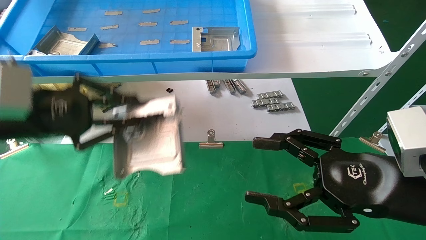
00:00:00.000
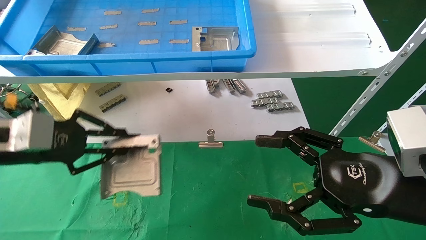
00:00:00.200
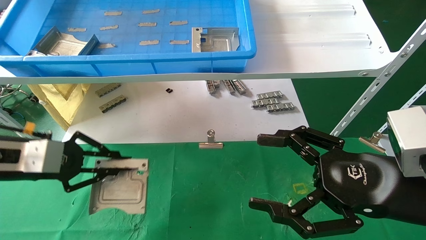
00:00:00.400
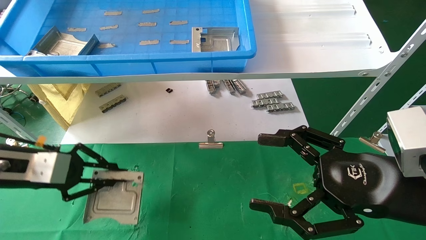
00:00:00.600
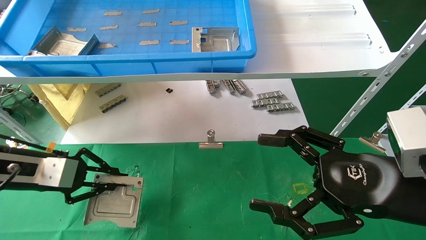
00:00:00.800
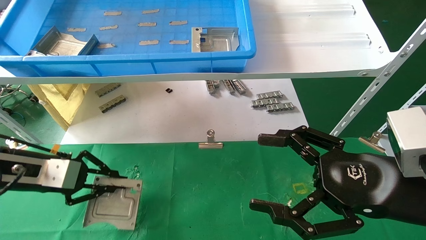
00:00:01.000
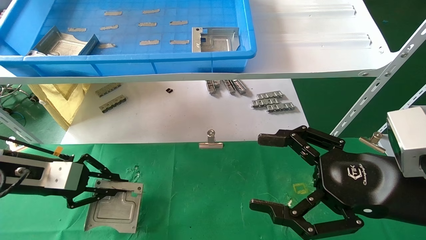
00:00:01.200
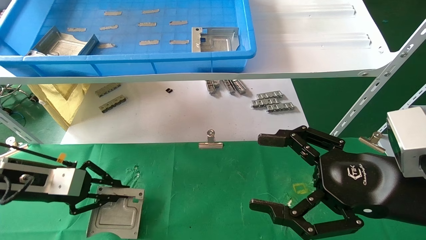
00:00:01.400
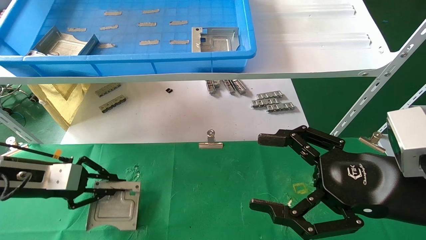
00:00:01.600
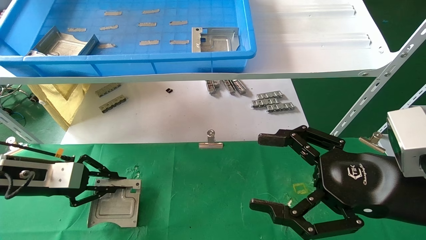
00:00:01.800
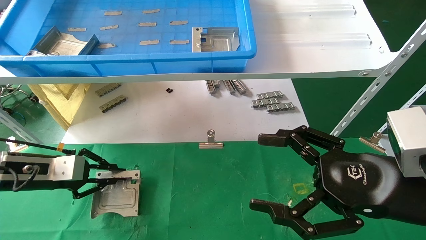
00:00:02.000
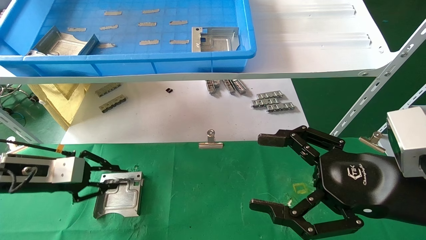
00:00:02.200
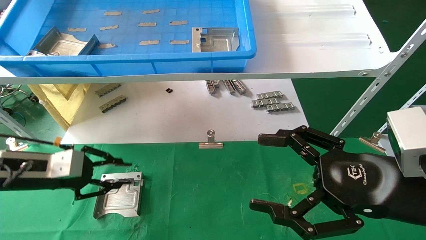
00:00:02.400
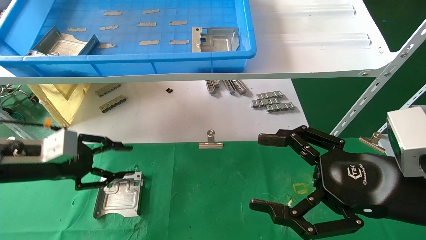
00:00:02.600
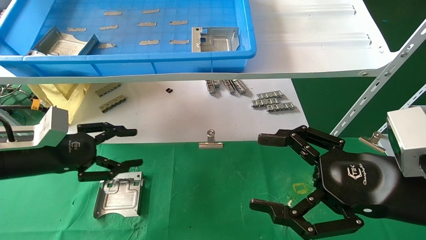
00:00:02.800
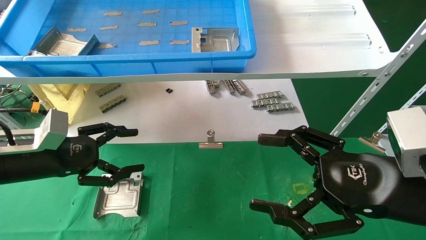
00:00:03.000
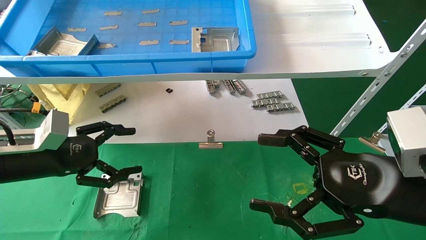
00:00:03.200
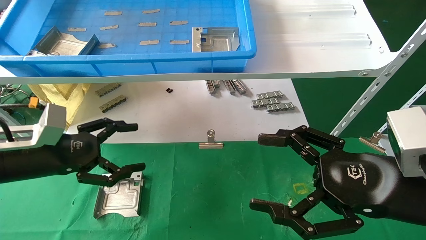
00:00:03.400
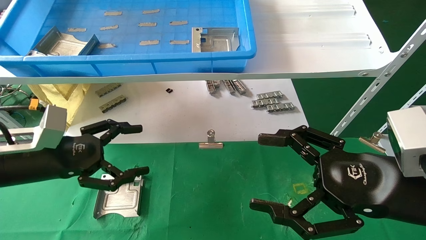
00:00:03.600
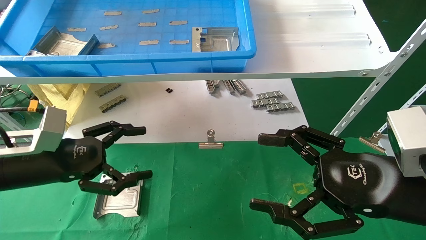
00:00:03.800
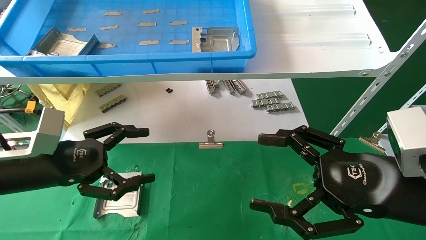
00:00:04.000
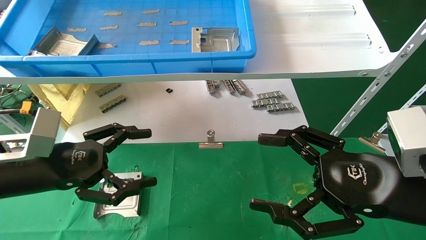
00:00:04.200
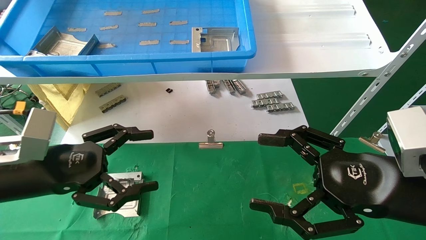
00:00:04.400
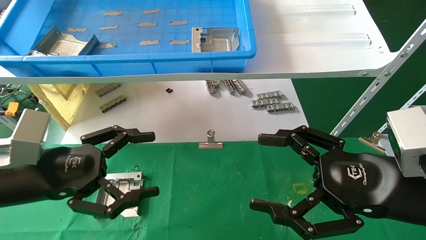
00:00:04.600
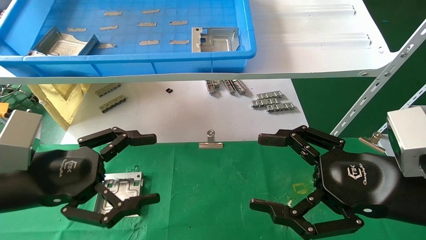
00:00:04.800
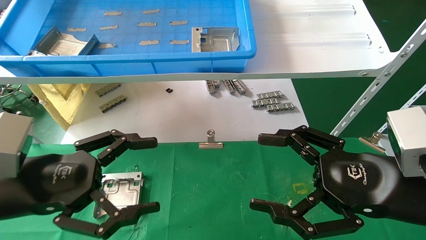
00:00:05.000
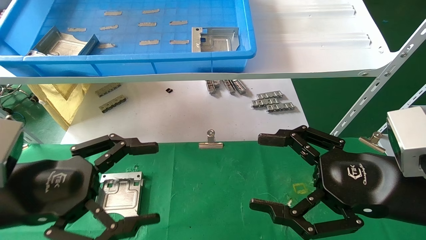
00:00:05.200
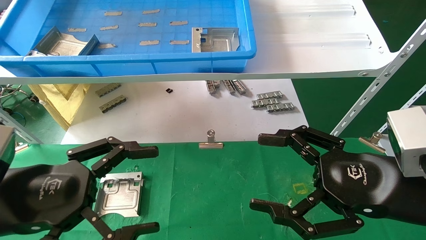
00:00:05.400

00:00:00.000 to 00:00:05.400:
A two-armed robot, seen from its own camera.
Task of the whole recording: use the mechanical arm to pick up the parts and place them on the table.
Step, 00:00:00.000 to 00:00:02.400: Place the hard drive bracket into the box.
00:00:00.000 to 00:00:01.400: The right gripper opens its fingers. Meanwhile the left gripper is displaced downward and to the left by roughly 15 cm.
00:00:01.400 to 00:00:02.800: The left gripper opens its fingers.
00:00:02.800 to 00:00:04.000: The left gripper changes place by roughly 5 cm, and opens up.
00:00:04.000 to 00:00:05.400: The left gripper heads backward, covering some 10 cm.

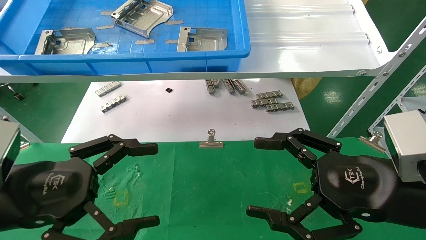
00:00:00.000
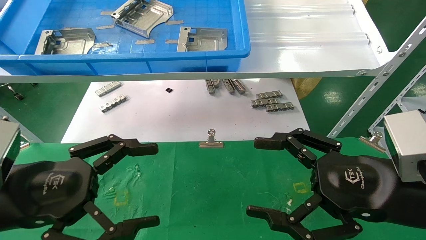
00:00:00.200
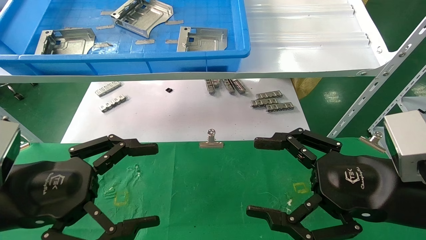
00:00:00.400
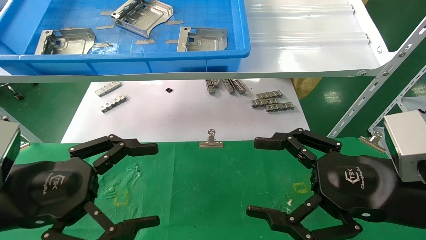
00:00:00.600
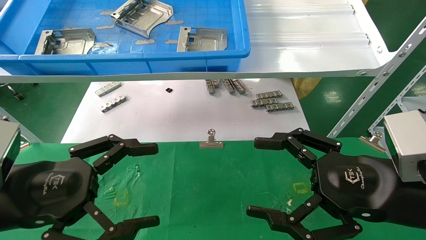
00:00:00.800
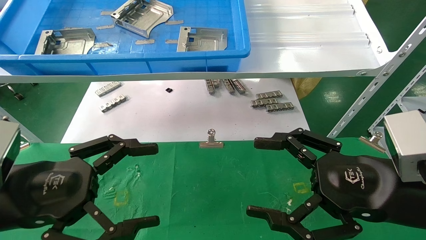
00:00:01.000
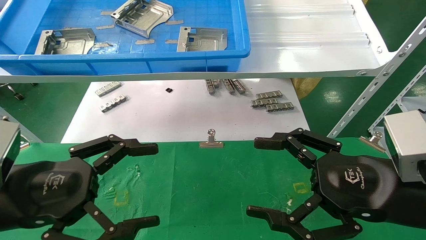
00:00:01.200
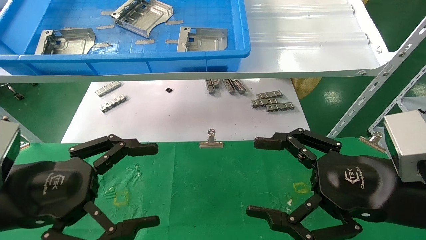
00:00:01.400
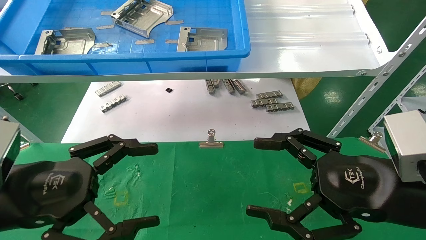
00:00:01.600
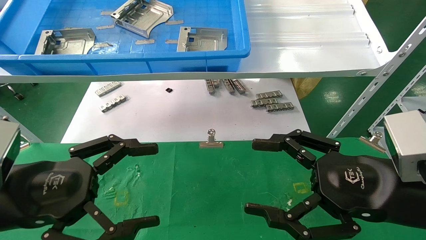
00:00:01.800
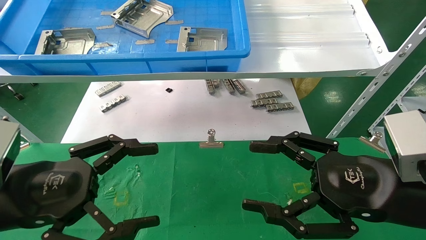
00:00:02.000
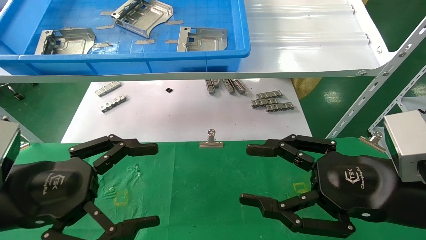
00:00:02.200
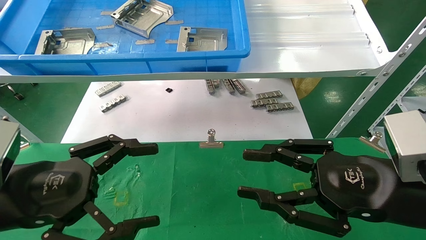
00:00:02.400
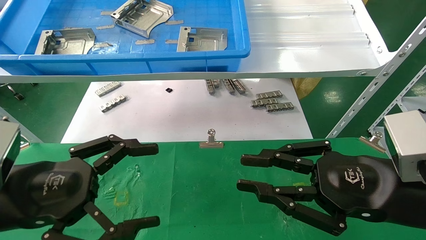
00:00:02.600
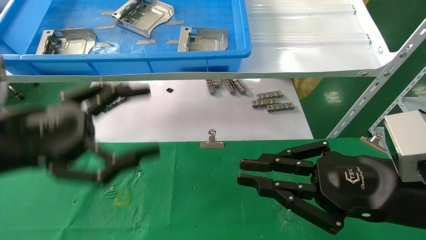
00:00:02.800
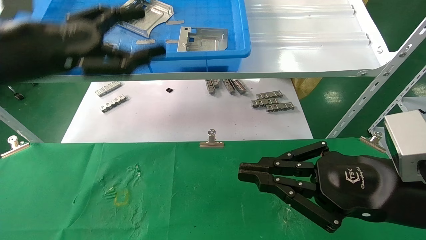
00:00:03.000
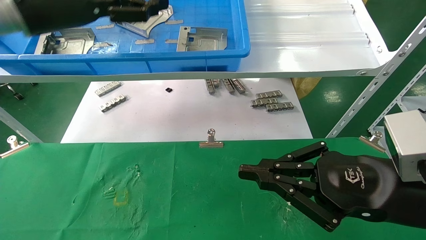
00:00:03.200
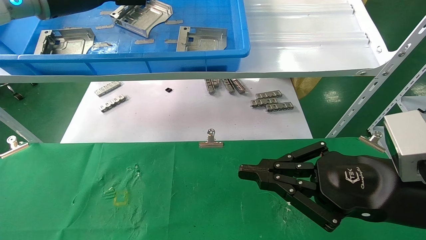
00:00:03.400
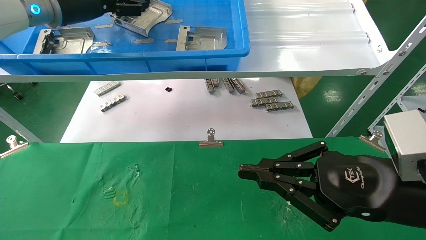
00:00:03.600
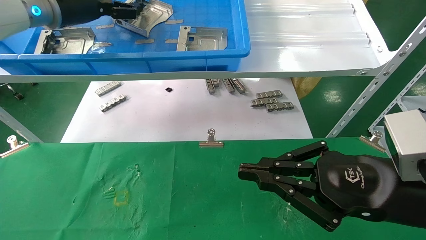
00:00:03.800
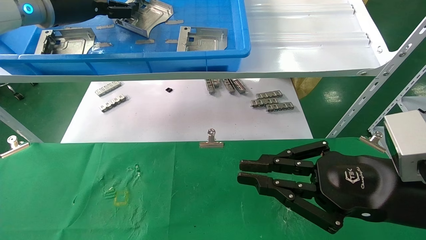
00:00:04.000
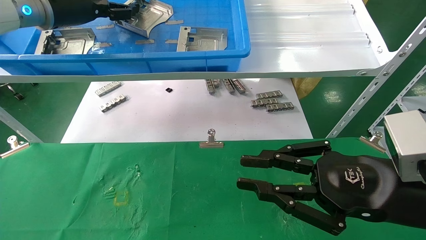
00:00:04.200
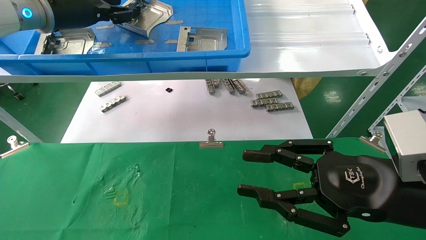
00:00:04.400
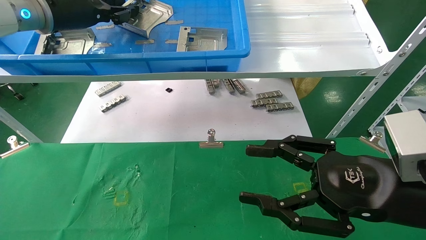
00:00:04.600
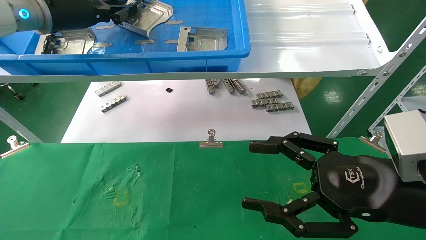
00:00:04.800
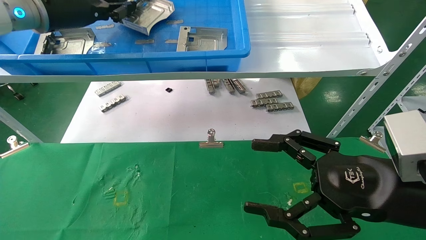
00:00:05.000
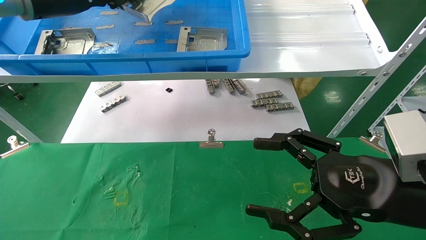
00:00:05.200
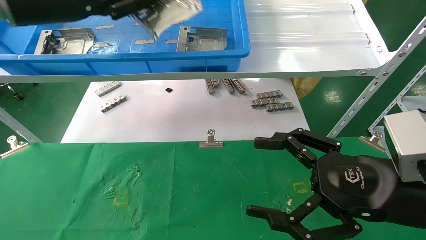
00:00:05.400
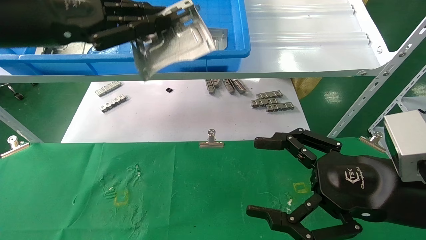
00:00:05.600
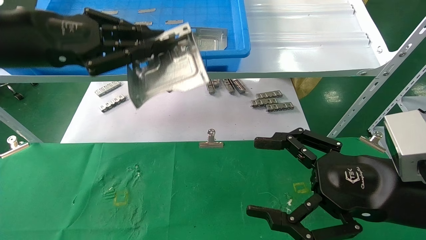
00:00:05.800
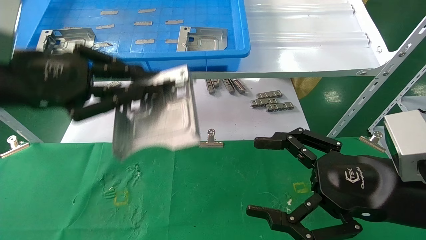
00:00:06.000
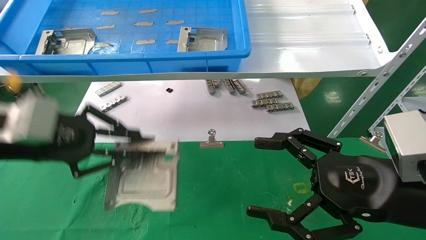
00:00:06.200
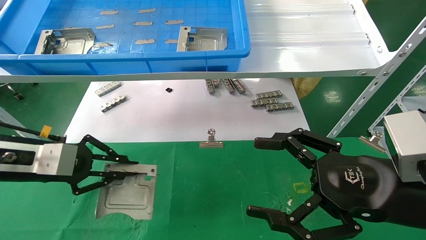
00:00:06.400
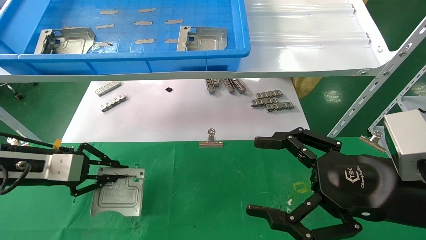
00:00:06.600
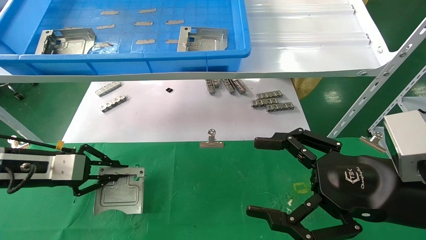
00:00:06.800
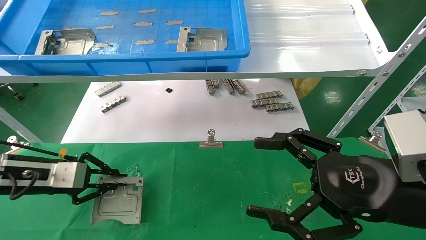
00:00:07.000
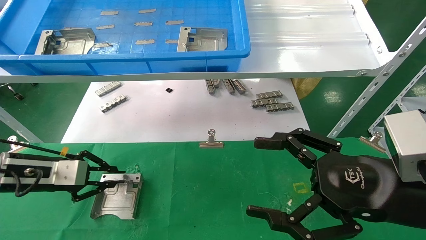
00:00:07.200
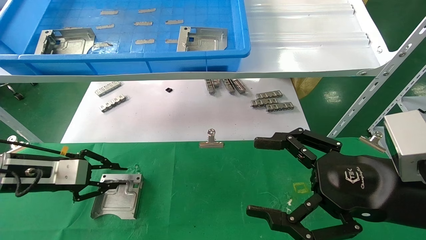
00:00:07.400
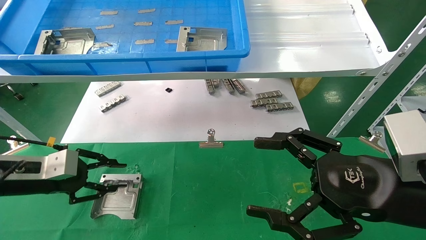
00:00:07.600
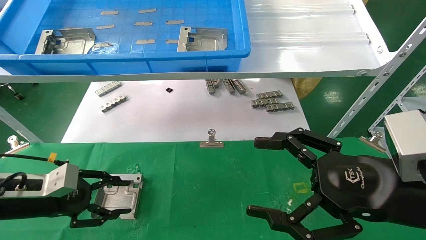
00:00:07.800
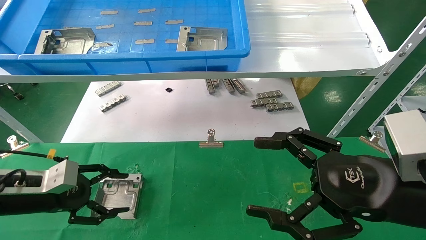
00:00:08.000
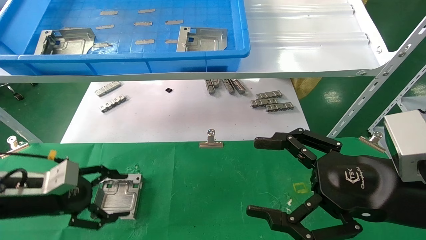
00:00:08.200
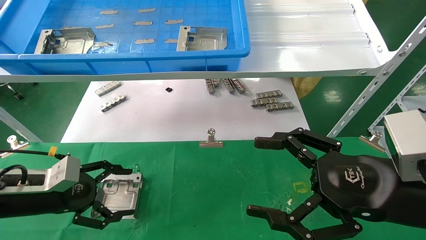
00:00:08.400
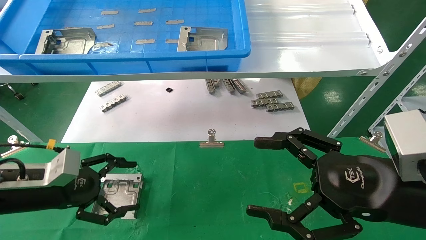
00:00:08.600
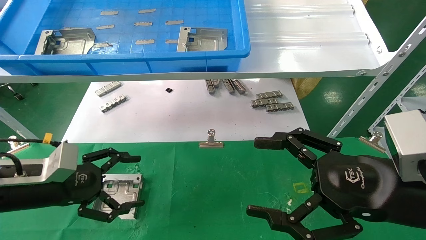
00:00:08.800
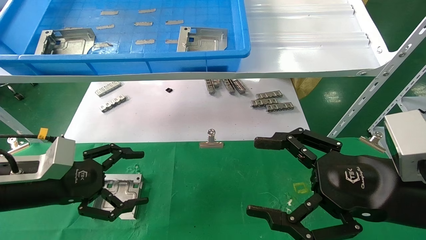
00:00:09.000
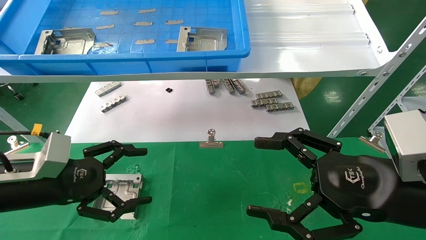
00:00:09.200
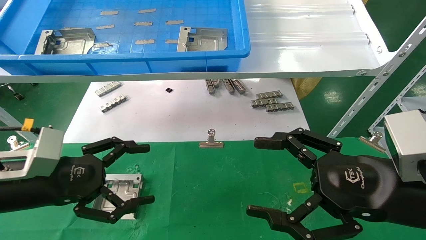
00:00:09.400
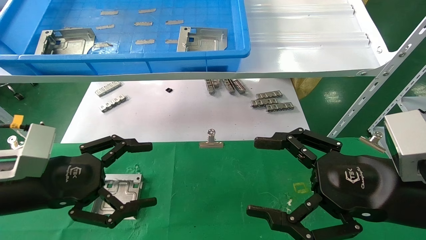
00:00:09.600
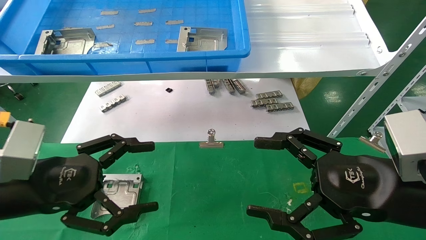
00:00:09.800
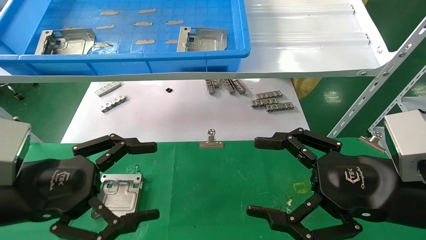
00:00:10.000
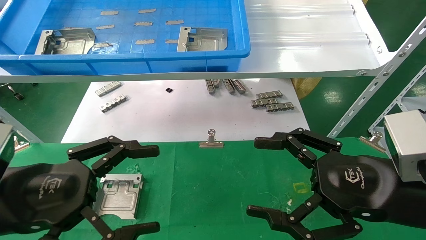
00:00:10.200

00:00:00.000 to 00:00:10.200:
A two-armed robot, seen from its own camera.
Task of the whole recording: use the mechanical arm to pick up the parts and place them on the table.
Step, 00:00:03.000 to 00:00:04.800: Pick up the hard drive bracket from the feeding area.
Step, 00:00:05.000 to 00:00:07.400: Place the hard drive bracket into the box.
00:00:00.000 to 00:00:01.400: Neither gripper changes place.
00:00:01.400 to 00:00:03.000: The right gripper closes, while the left gripper travels upward and forward by approximately 20 cm.
00:00:03.000 to 00:00:04.400: The left gripper moves forward and upward, approximately 15 cm, and closes.
00:00:04.400 to 00:00:05.800: The right gripper opens; the left gripper goes approximately 15 cm backward, and closes.
00:00:05.800 to 00:00:07.200: The left gripper heads downward, covering about 25 cm.
00:00:07.200 to 00:00:08.800: The left gripper moves about 5 cm, and opens its fingers.
00:00:08.800 to 00:00:10.200: The left gripper heads backward, to the right and upward, covering roughly 15 cm.
